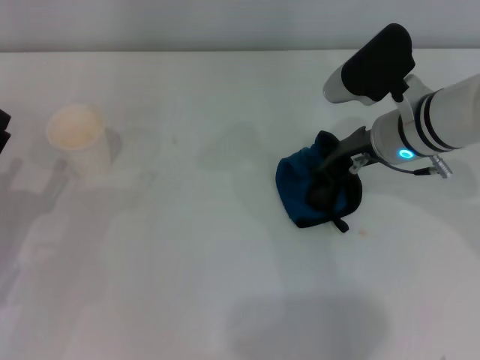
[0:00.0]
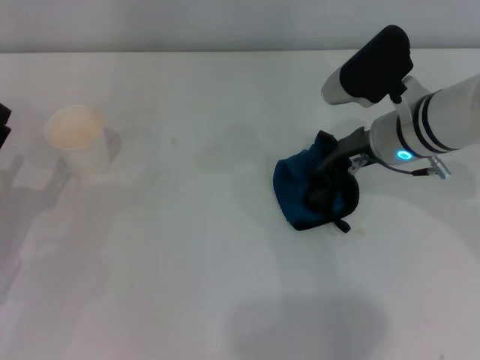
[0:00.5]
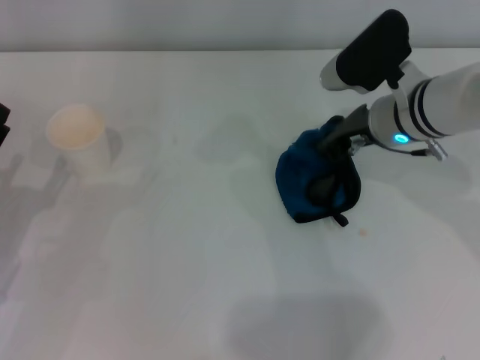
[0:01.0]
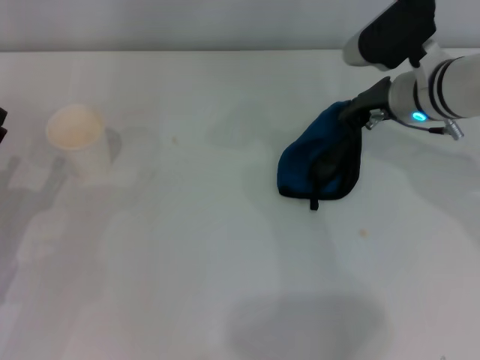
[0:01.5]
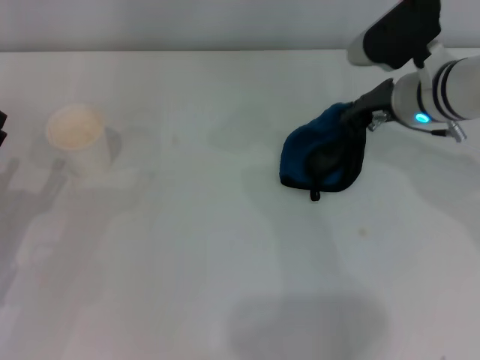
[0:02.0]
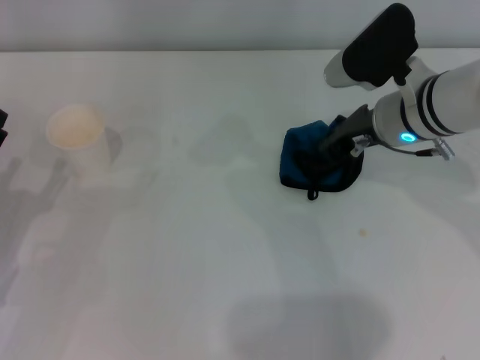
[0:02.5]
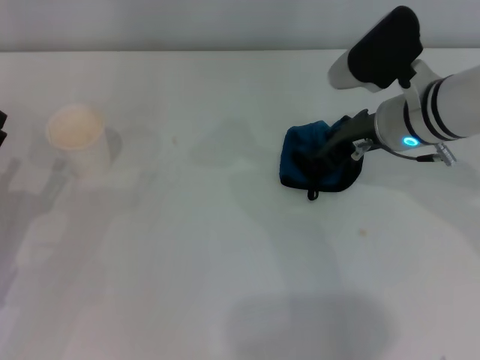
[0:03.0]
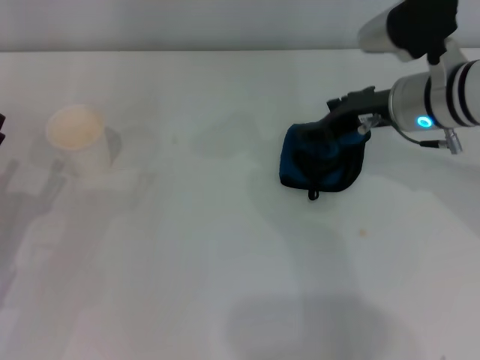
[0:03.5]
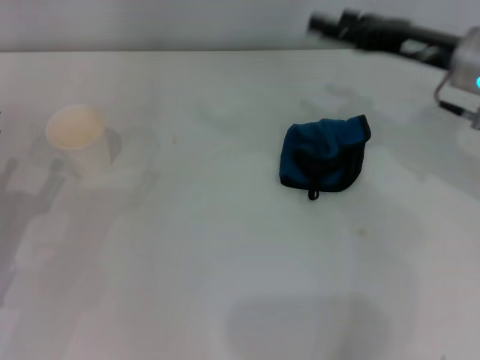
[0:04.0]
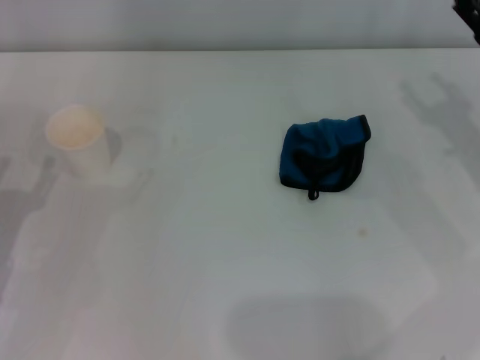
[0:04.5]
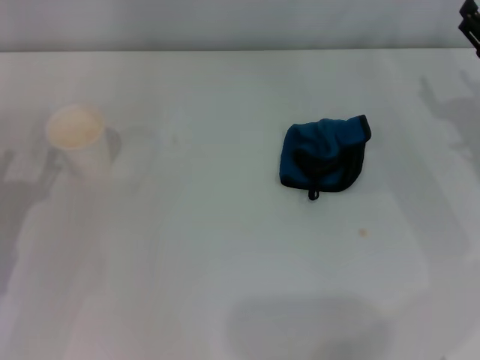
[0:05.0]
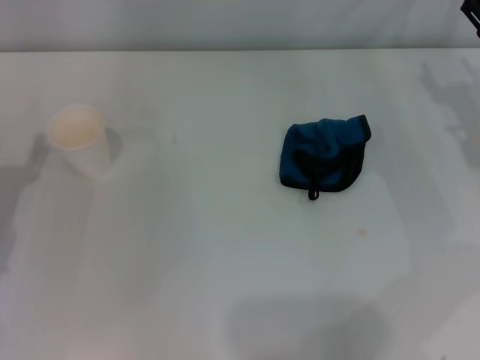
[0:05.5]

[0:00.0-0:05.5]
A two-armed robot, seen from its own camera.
Step, 0:00.0 to 0:02.0: Wipe the stains off the table with the right gripper.
Step, 0:02.5 to 0:03.0: Place the rag on the table with the right gripper.
0:00.0 to 0:02.0: The grippers make only small movements.
0:02.0 to 0:03.5: The right gripper opens up.
0:03.5 to 0:05.5: The right gripper heads to the right, covering approximately 15 cm.
